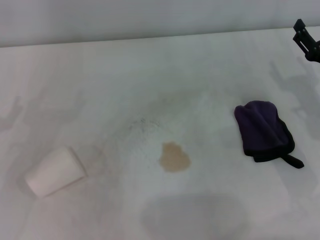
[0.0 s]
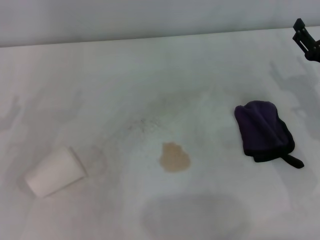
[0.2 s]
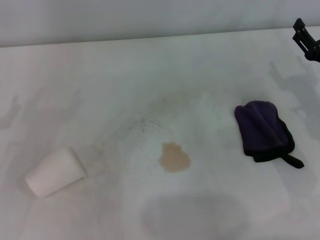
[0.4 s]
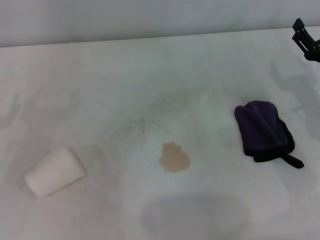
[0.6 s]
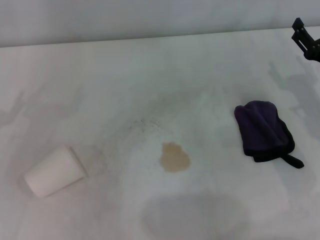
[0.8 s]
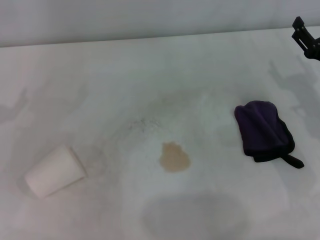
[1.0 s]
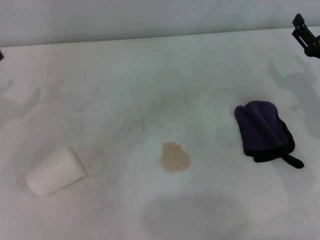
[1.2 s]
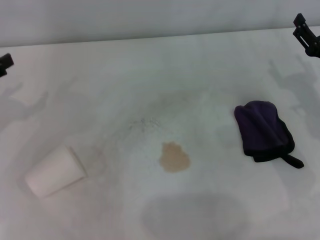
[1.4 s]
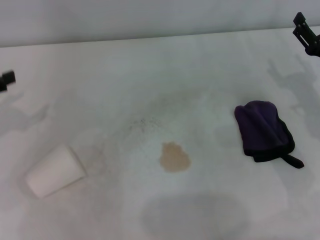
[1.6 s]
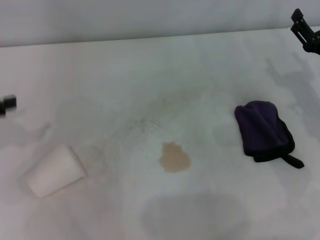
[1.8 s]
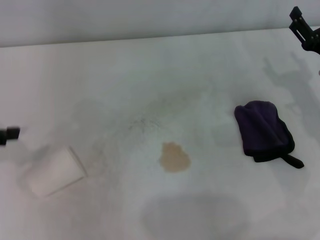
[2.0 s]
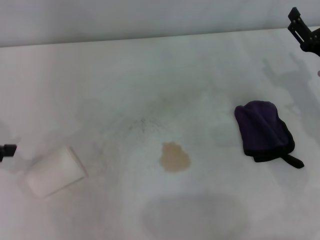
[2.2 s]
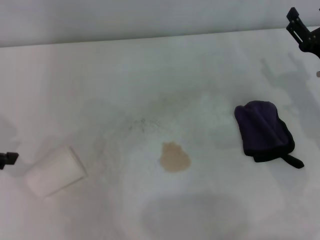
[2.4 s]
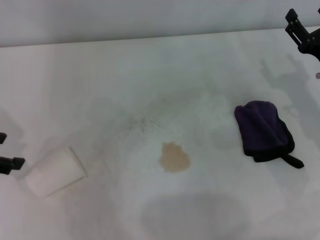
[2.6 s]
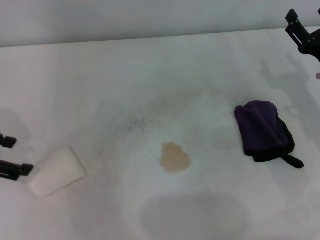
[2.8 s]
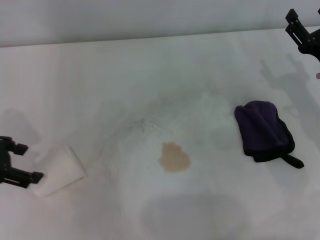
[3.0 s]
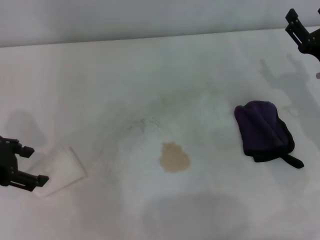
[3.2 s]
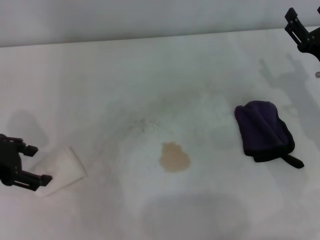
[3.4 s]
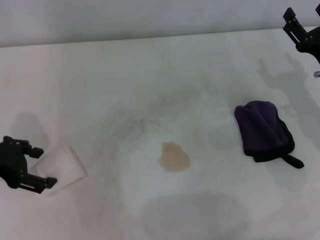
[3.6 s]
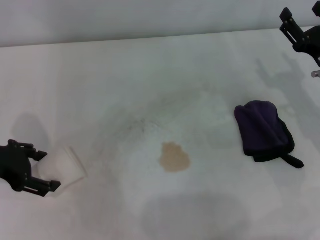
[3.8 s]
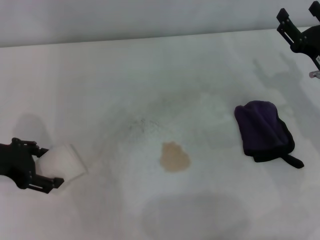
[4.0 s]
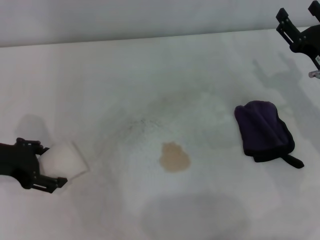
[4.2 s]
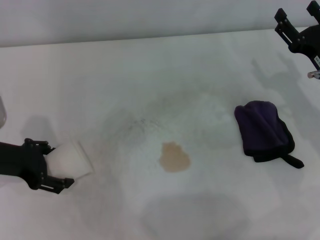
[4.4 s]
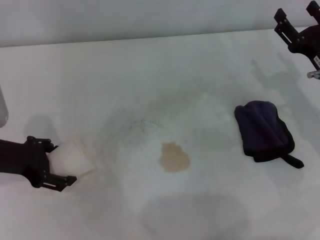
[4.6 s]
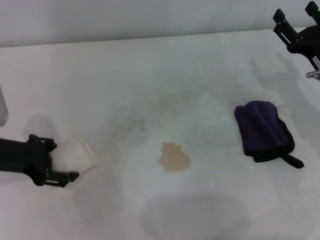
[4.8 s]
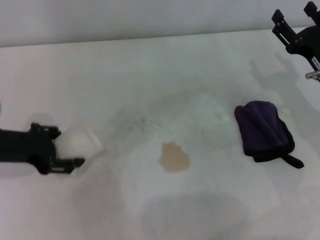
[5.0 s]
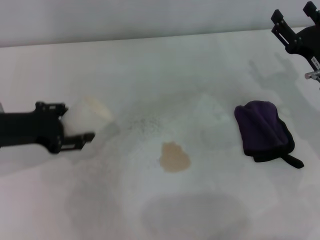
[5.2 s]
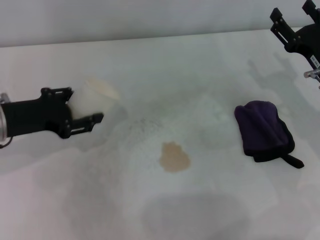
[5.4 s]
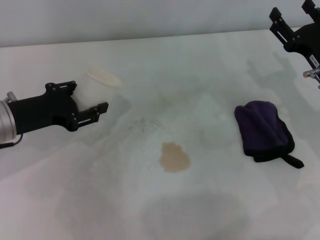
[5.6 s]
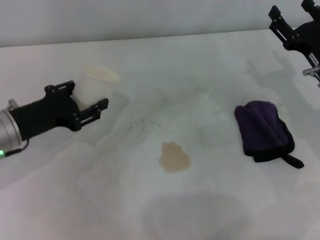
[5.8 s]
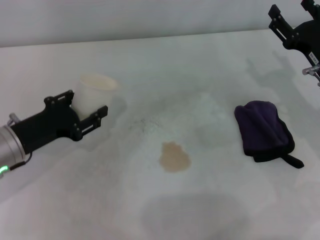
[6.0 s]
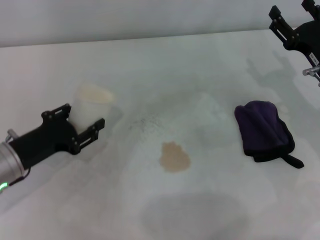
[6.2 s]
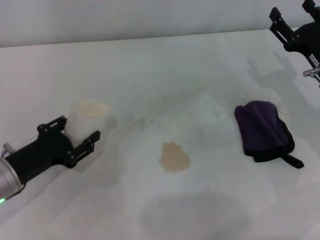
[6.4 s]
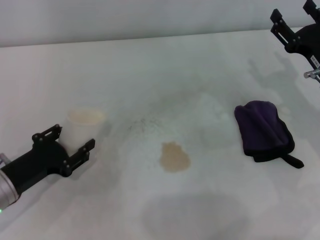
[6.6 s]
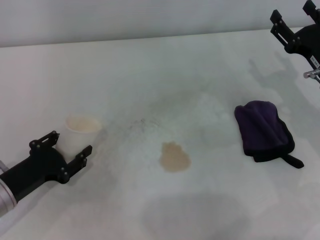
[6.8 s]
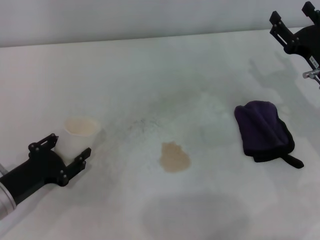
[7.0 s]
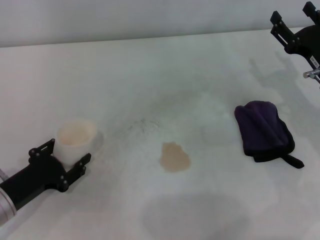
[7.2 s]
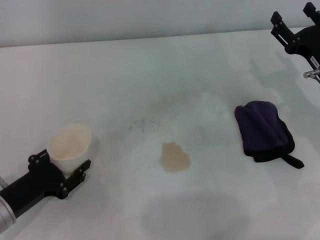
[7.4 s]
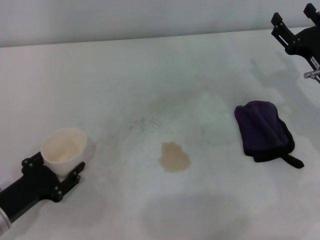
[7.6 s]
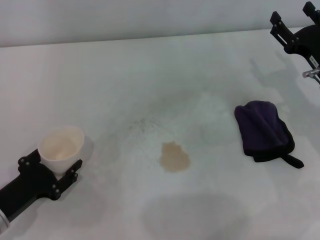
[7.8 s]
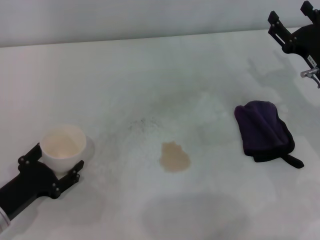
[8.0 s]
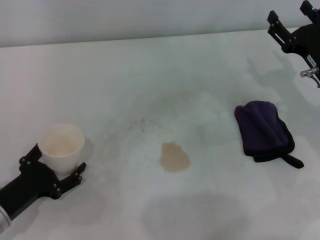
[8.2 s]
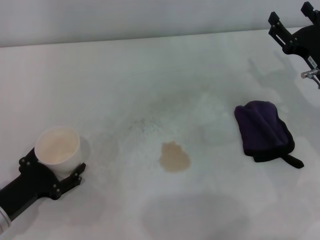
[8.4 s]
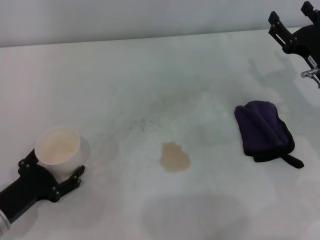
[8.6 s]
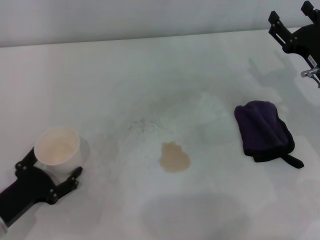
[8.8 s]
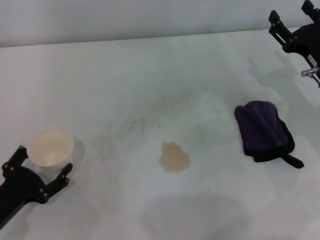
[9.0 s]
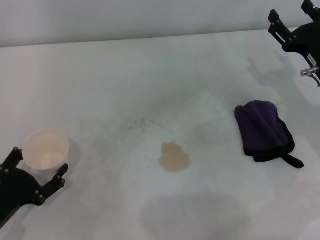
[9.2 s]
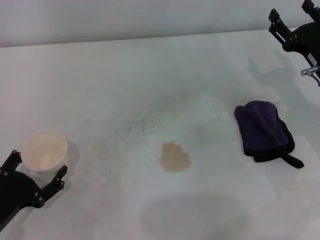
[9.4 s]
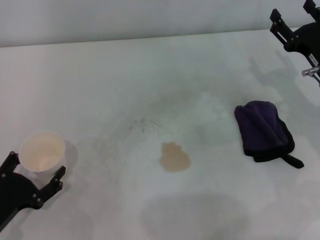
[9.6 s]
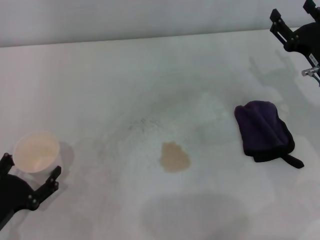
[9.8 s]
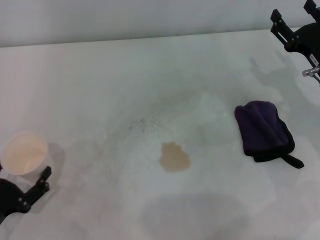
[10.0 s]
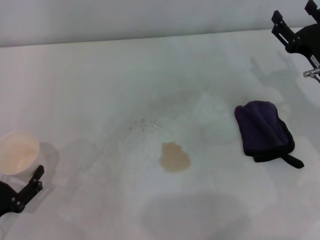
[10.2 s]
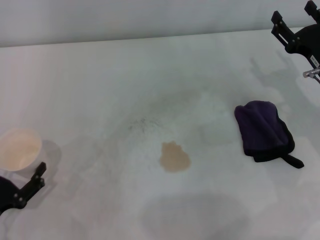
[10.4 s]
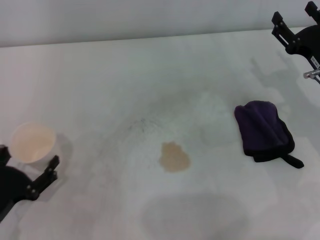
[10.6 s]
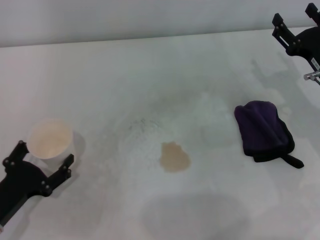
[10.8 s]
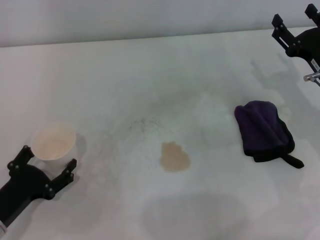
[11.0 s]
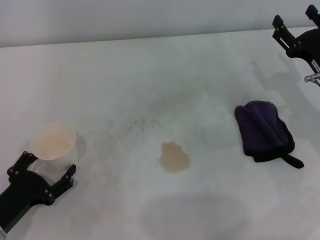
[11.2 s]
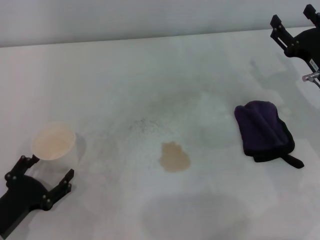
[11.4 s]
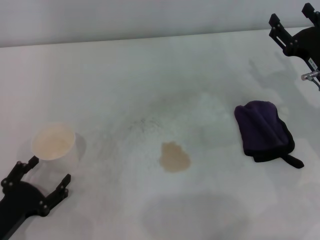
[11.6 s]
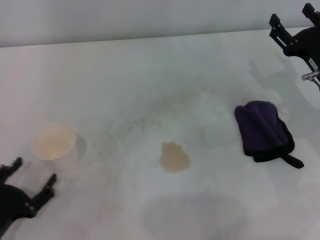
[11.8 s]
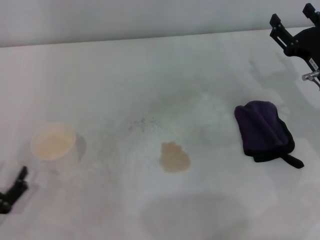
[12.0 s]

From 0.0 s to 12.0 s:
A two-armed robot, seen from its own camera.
Step, from 0.0 s to 4.6 s: Grasp the paper cup with the left gripper.
Step, from 4.8 s to 11.2 s: Stand the paper cup upright with the left gripper.
From 1.6 s to 3.0 s: The left gripper heads to the right, covering about 5 cm.
From 3.0 s to 4.4 s: The left gripper changes place by approximately 5 cm.
From 4.4 s to 6.0 s: The left gripper ends up roughly 5 cm from where it was, and closes.
From 6.0 s to 7.6 s: The left gripper is displaced backward and downward by approximately 10 cm.
From 7.6 s to 9.0 s: The left gripper opens its fingers.
From 9.0 s to 12.0 s: The grippers make only small movements.

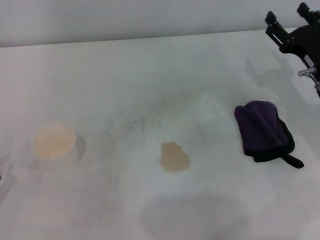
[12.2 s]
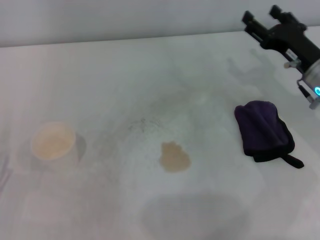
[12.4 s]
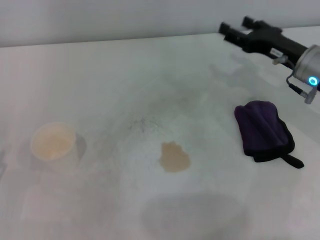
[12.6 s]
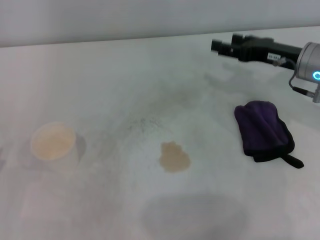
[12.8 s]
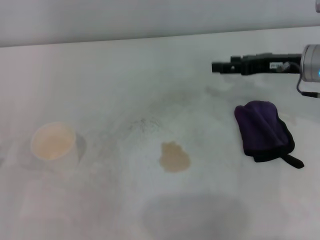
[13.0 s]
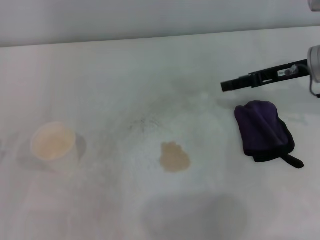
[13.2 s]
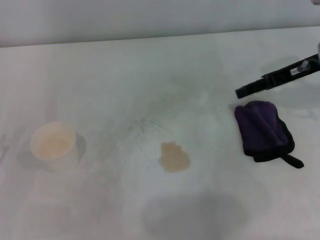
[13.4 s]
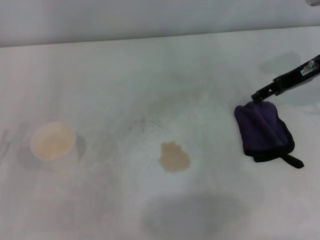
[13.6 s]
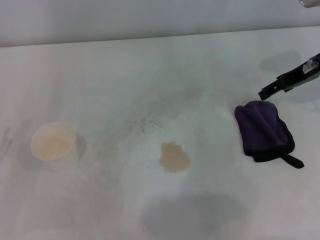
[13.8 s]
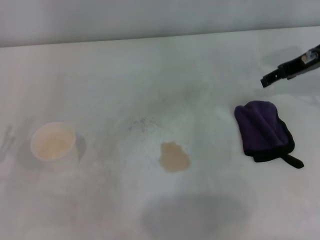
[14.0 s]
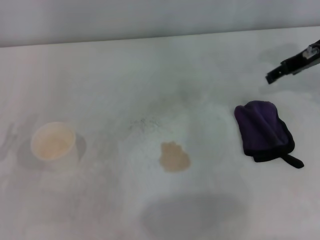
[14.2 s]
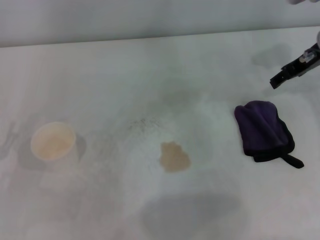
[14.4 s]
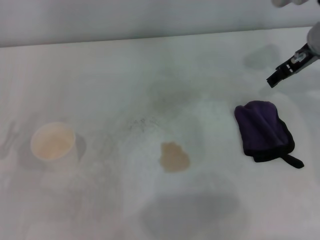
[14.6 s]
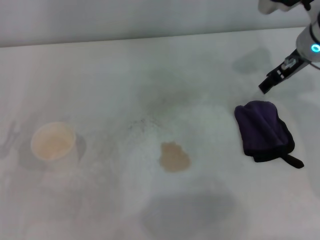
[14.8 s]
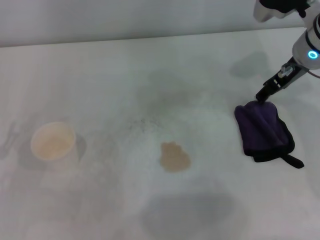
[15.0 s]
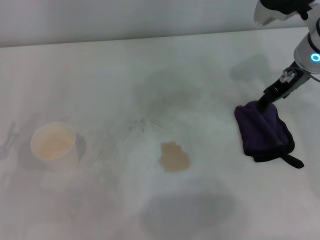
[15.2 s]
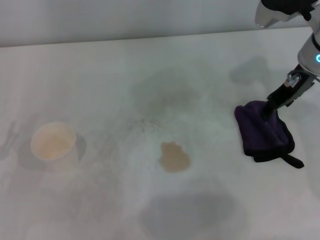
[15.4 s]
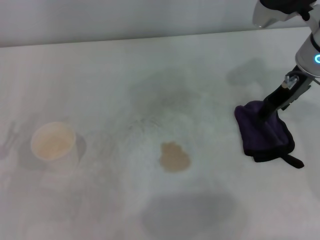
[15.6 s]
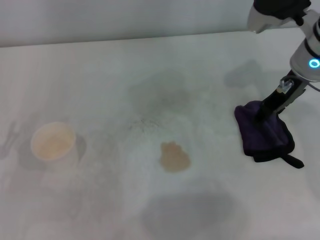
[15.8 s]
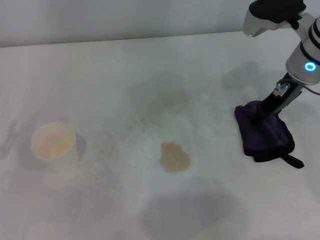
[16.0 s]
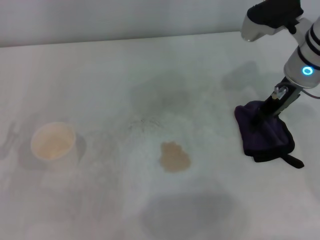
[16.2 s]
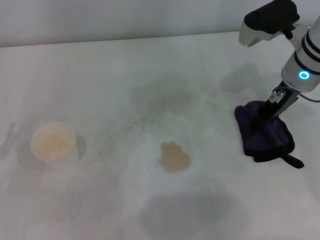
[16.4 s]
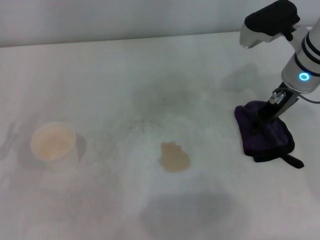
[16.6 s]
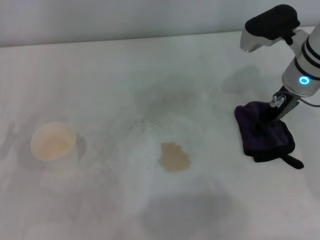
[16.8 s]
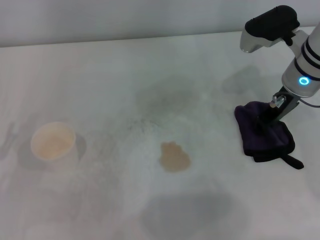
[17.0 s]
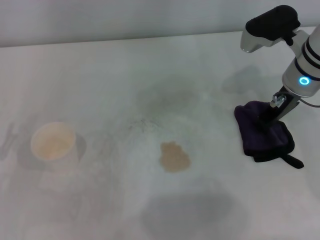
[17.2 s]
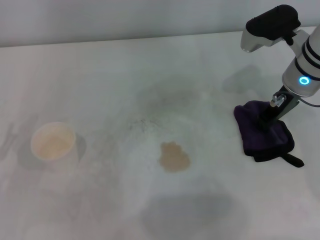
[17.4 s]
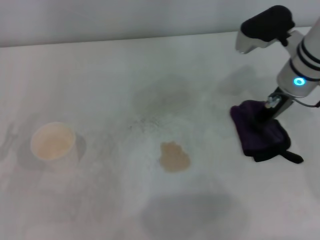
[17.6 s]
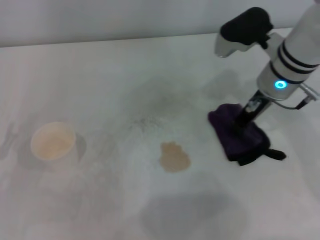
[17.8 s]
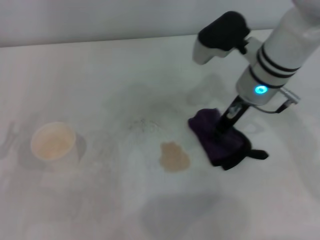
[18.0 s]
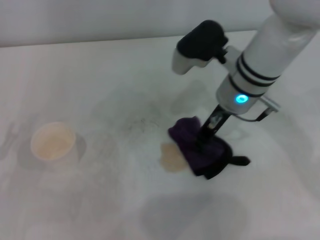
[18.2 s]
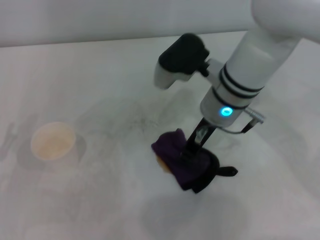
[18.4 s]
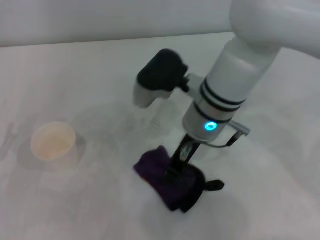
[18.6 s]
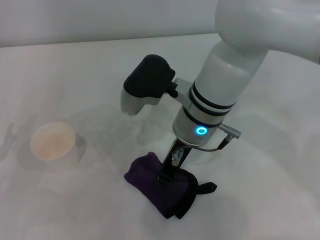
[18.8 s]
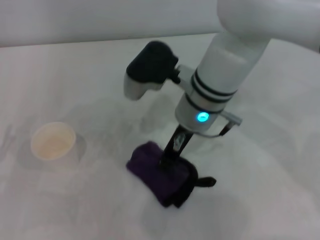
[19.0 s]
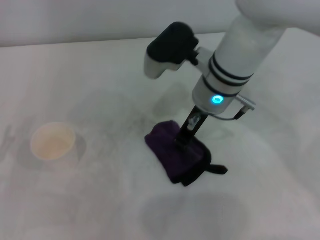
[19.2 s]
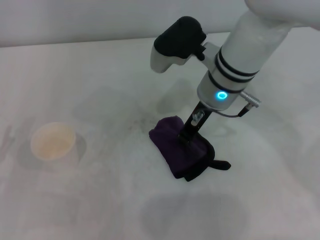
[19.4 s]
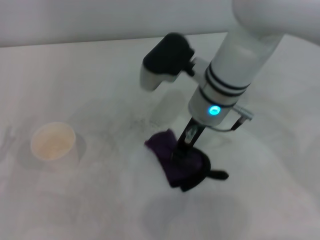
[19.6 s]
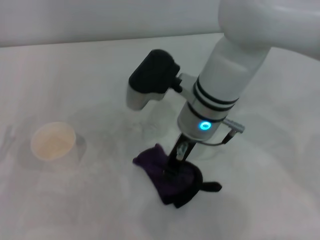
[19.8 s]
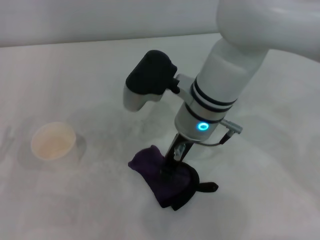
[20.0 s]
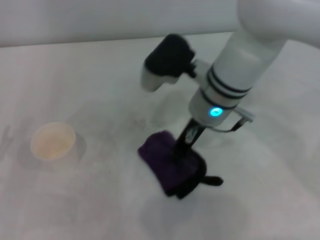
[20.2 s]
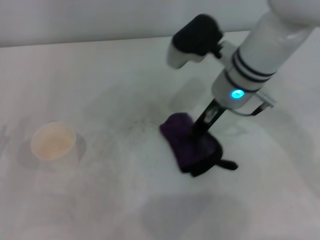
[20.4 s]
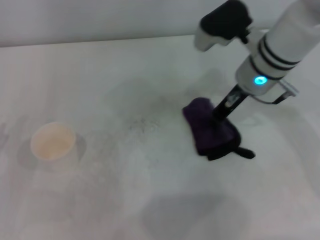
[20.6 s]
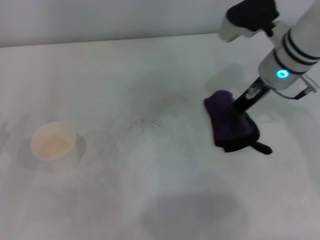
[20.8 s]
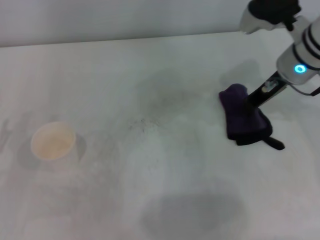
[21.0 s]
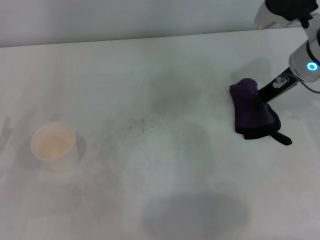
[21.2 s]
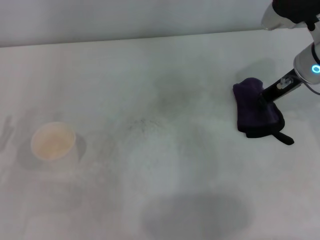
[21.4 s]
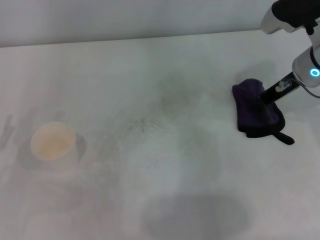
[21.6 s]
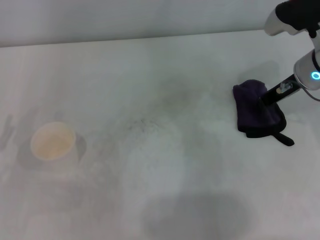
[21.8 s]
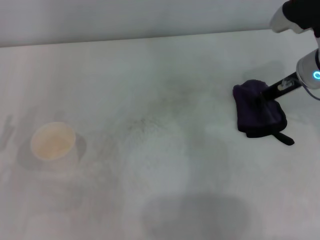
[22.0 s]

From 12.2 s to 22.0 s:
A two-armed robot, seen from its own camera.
Step, from 12.2 s to 17.4 s: Grasp the rag with the right gripper.
Step, from 17.6 s to 21.0 s: Wipe the stains off the table with the right gripper.
Step, from 21.2 s to 21.8 s: Place the rag on the table with the right gripper.
From 12.2 s to 13.6 s: The right gripper shifts approximately 10 cm upward and forward.
From 13.6 s to 15.0 s: The right gripper is displaced to the left by some 5 cm.
From 15.0 s to 16.4 s: The grippers make only small movements.
From 16.4 s to 17.8 s: The right gripper closes up.
From 17.8 s to 19.2 s: The right gripper shifts approximately 10 cm to the left.
From 19.2 s to 20.6 s: The right gripper travels to the right by roughly 5 cm.
From 20.6 s to 22.0 s: The right gripper goes about 10 cm to the right.
